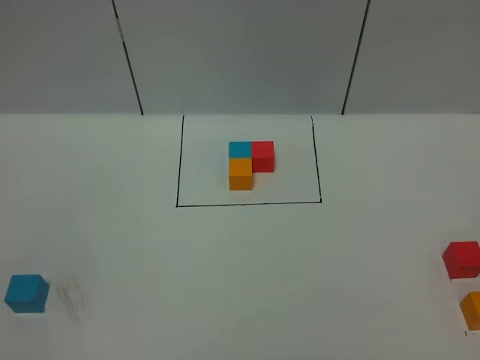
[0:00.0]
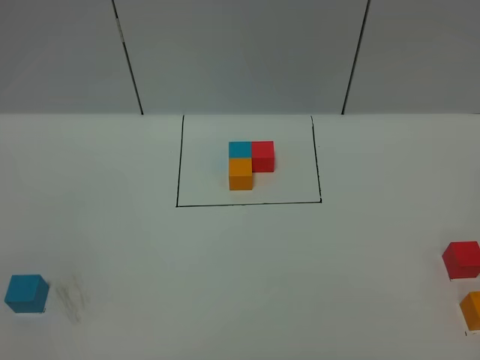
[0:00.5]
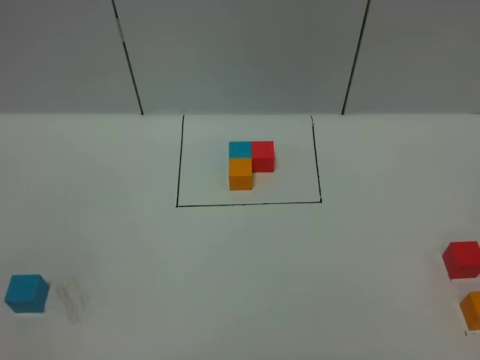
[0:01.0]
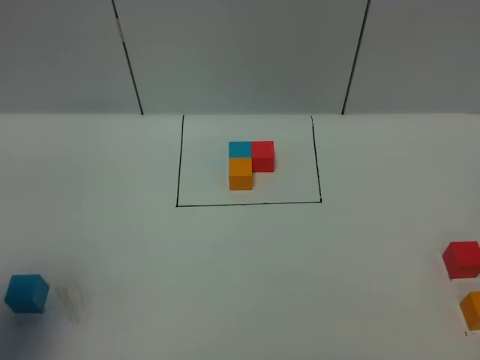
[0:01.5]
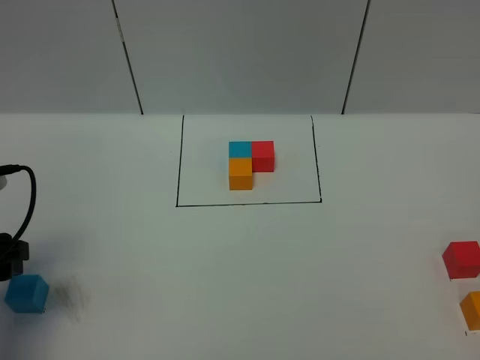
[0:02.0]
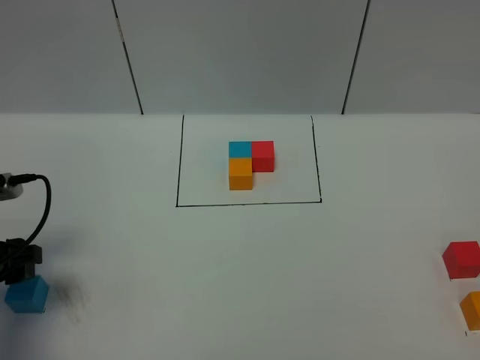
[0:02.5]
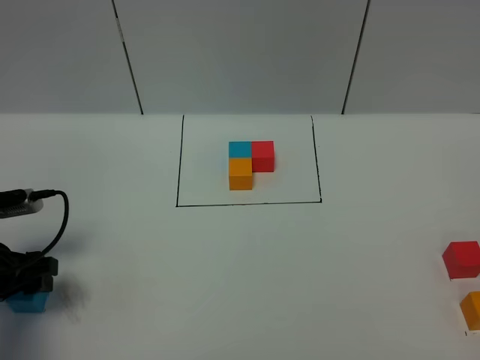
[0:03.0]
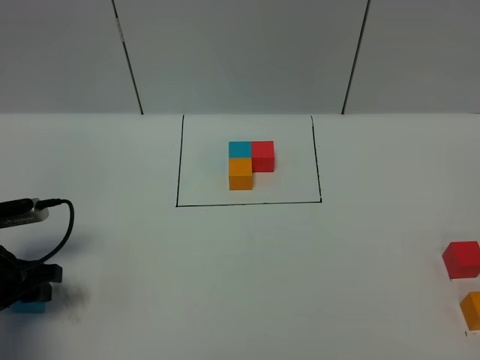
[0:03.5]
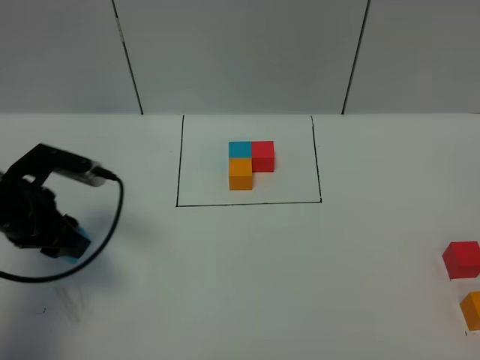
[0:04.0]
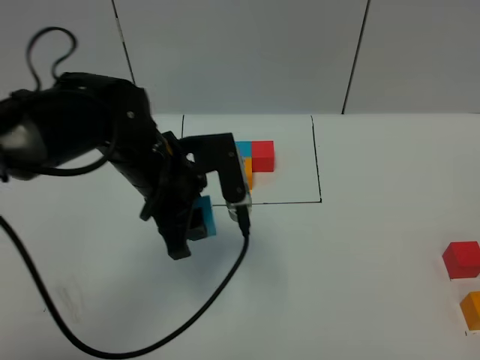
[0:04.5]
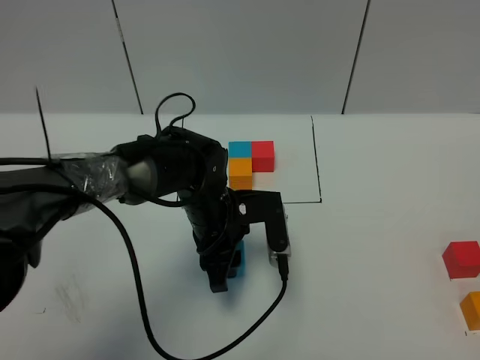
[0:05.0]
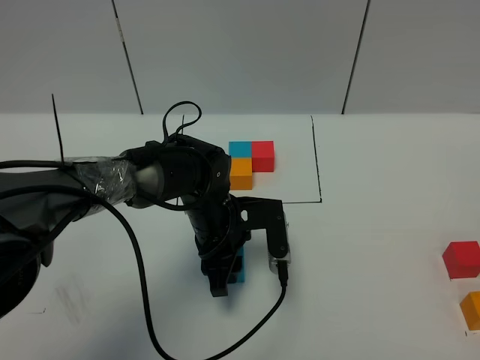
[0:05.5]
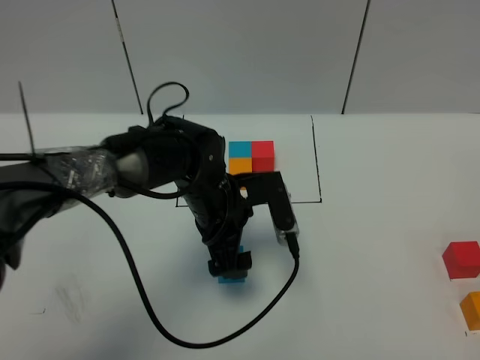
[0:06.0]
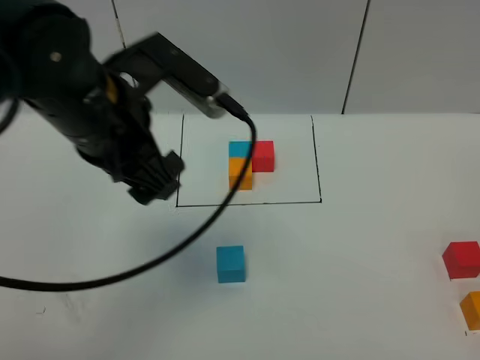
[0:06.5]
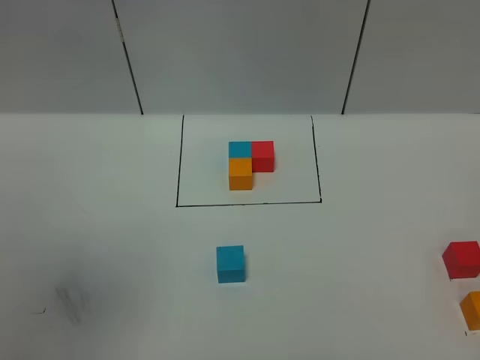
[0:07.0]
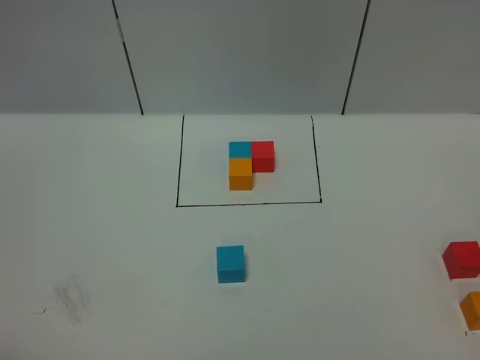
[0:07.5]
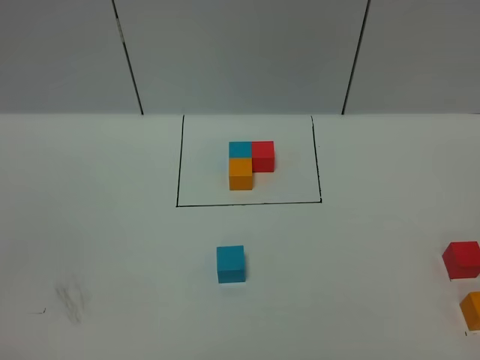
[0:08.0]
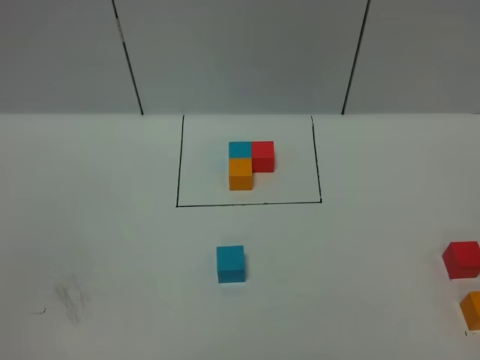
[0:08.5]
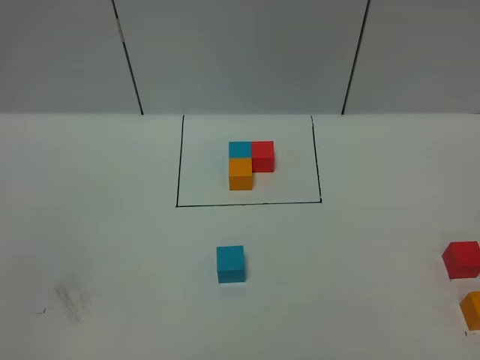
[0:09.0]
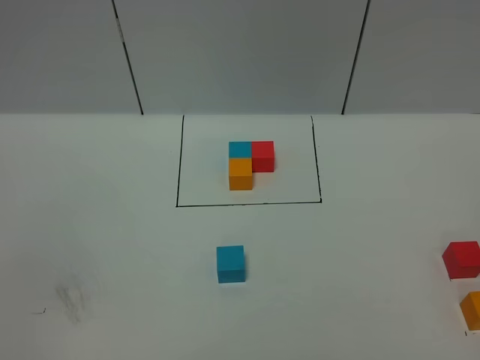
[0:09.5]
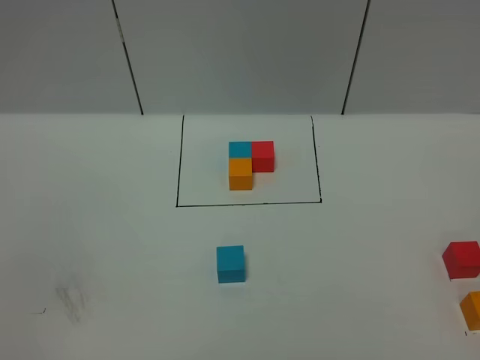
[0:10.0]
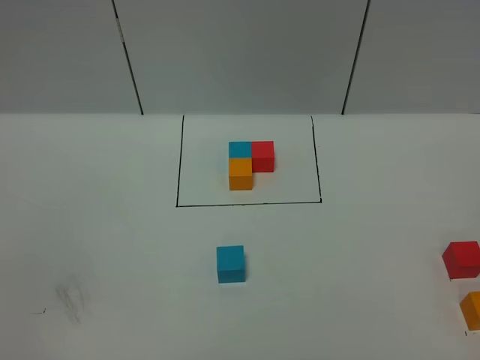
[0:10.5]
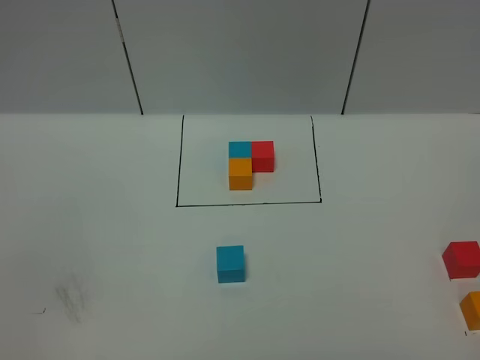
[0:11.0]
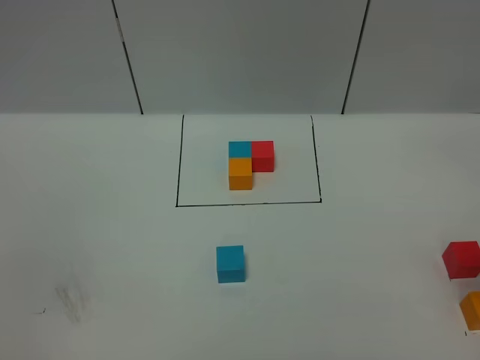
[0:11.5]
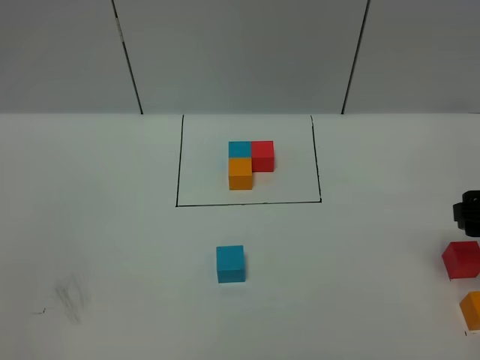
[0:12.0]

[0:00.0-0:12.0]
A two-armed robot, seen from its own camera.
Task of the whole recording: According to the building block template in front, assemble the scattered blocks together.
Step, 0:02.0 to 0:06.0: Put the blue cube in the center of the table.
0:00.0 to 0:02.0: The left gripper travels forward by approximately 25 cm.
0:02.0 to 0:04.0: The left gripper goes approximately 10 cm forward and to the right, and closes its fingers.
0:04.0 to 0:06.0: The left gripper is displaced to the right by approximately 25 cm, and opens up.
0:06.0 to 0:08.0: The left gripper shifts some 50 cm backward, to the left and upward, and closes.
0:10.0 to 0:12.0: The right gripper goes approximately 30 cm forward, and opens up.

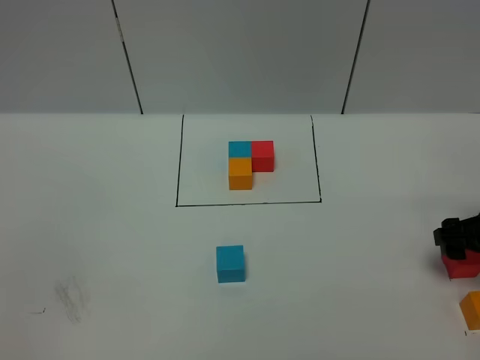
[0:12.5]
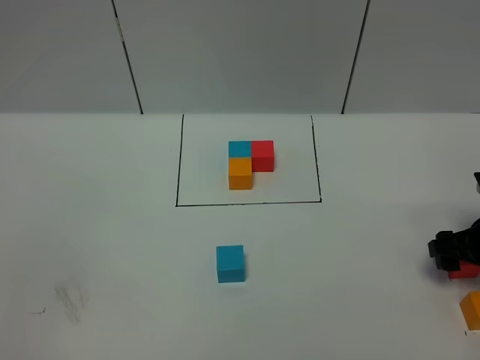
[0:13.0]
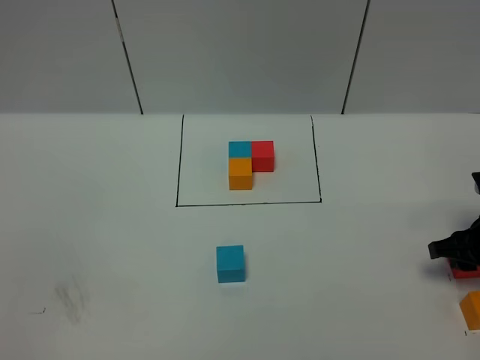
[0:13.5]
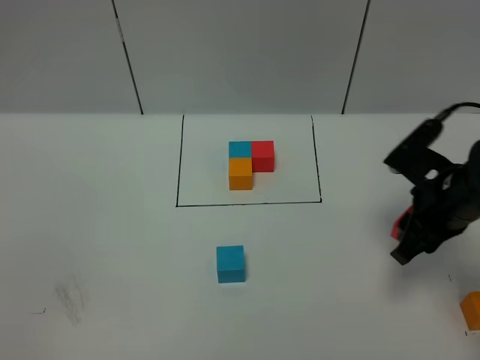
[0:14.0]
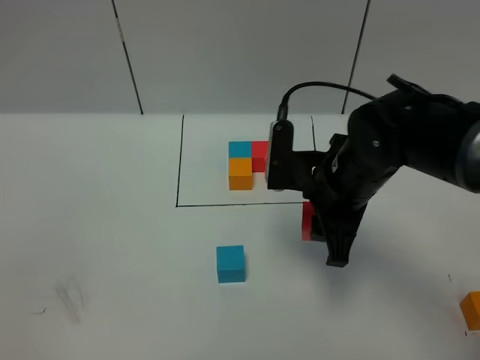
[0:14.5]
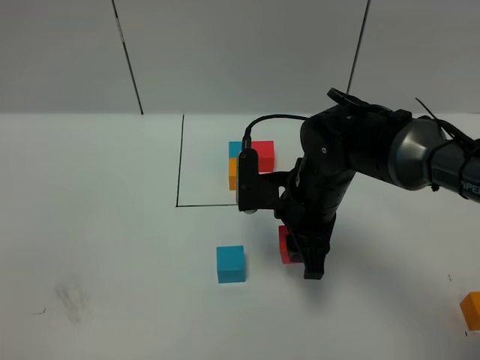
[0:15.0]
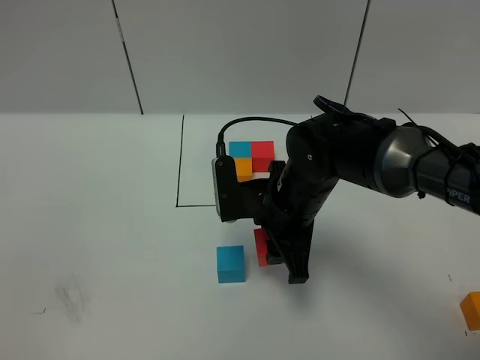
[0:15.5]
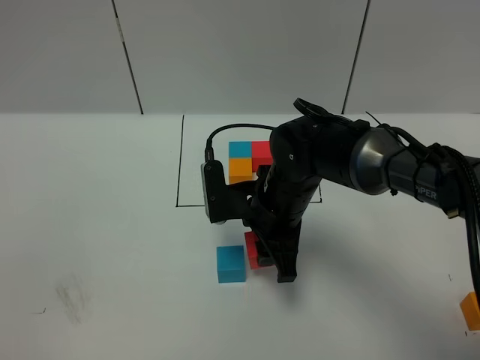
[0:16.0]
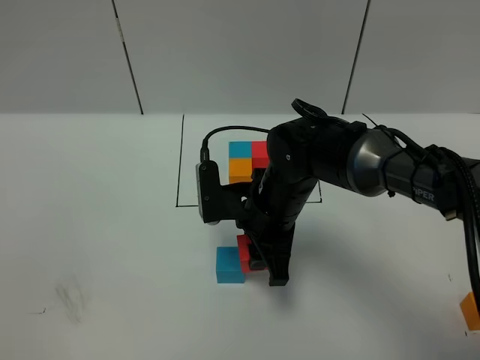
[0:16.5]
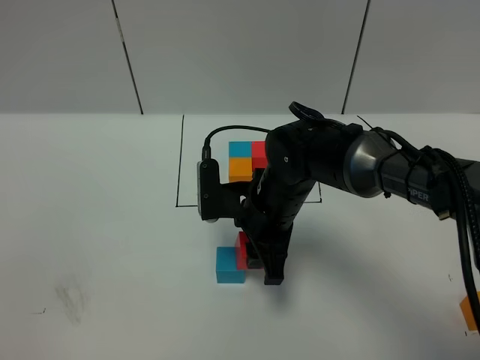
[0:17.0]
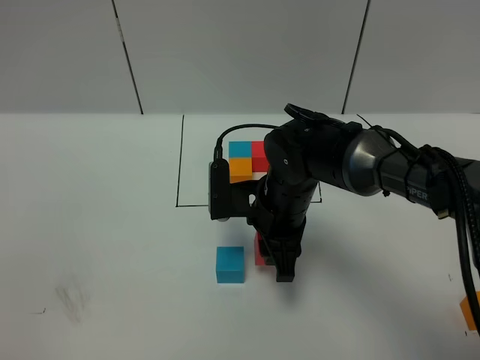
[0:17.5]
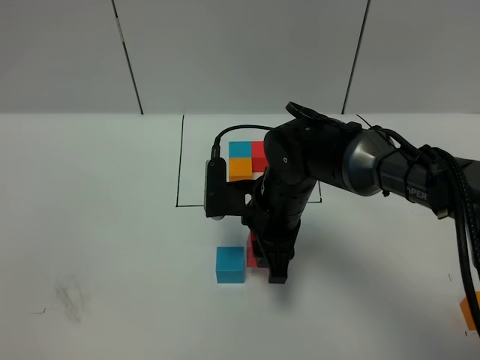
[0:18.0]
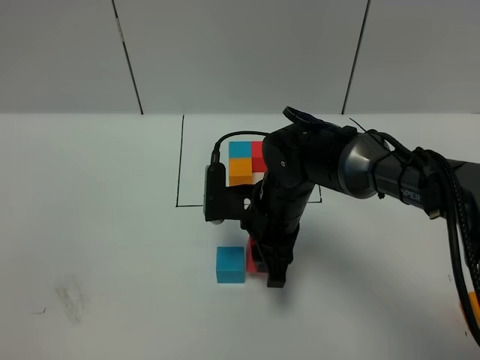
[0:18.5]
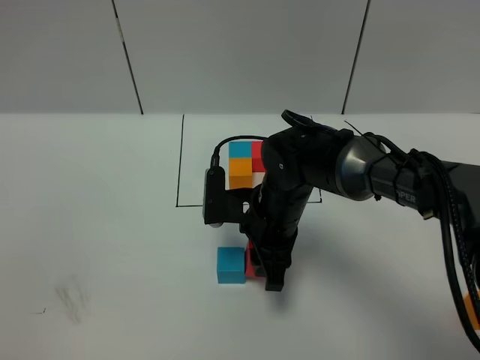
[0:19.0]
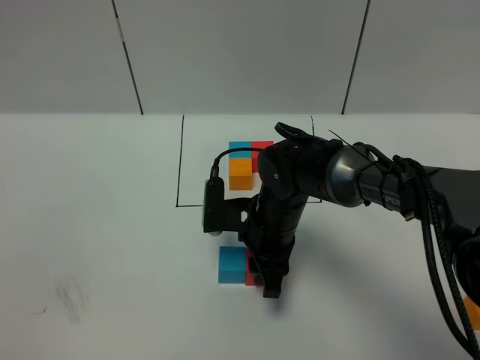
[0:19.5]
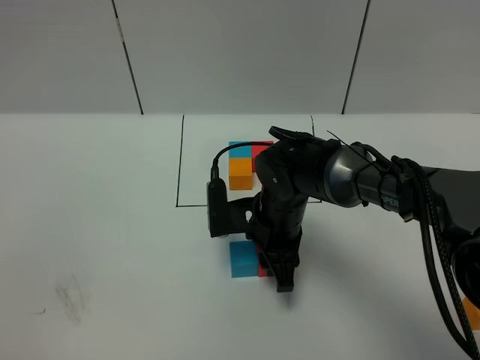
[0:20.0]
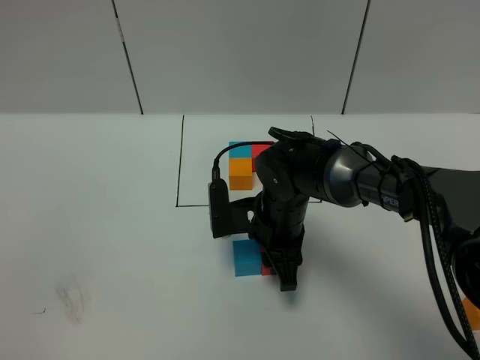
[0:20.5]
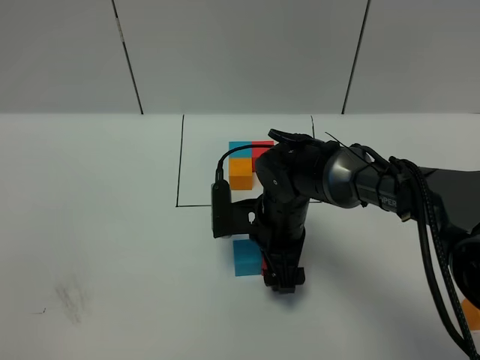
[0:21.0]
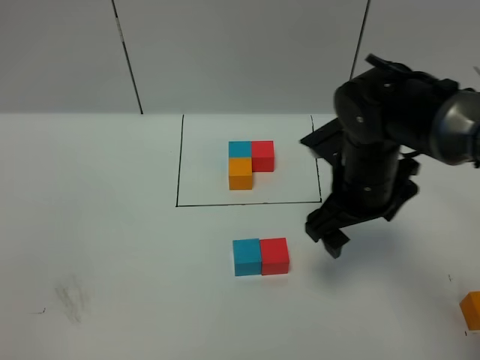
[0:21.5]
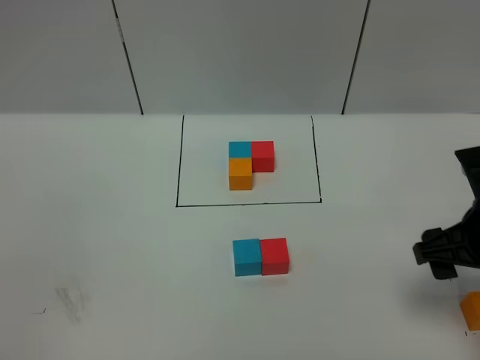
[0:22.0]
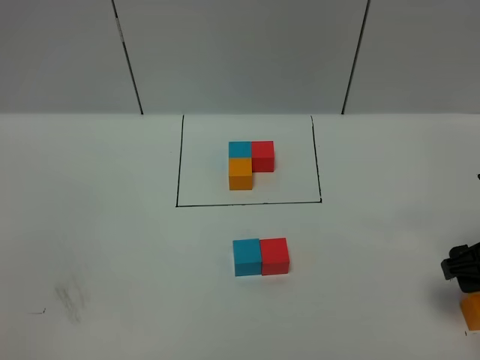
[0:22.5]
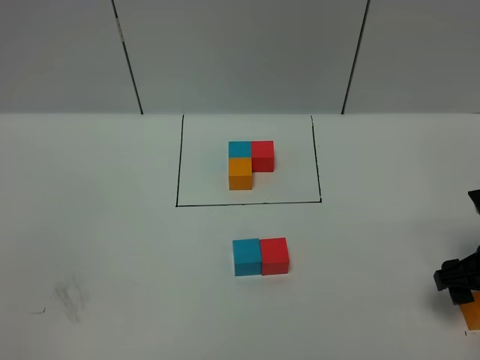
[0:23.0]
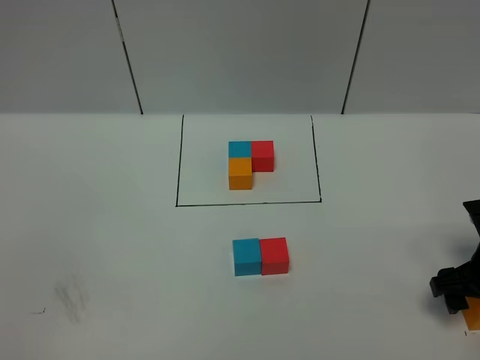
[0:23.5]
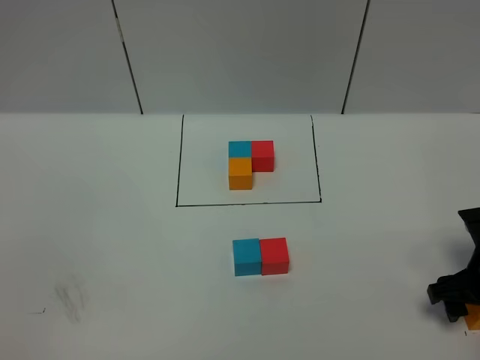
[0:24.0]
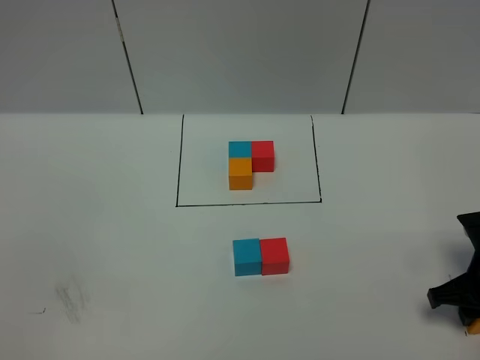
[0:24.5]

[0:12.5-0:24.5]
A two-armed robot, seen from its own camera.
Task of the whole recording: According to the building block template in front, assemble the scattered blocks together.
Step, 0:12.5 to 0:21.0: Put the red cube on the right of the blue cube.
0:12.5 to 0:14.5: The right gripper travels to the left by some 20 cm, and closes.
0:14.5 to 0:16.5: The right gripper is displaced to the left by roughly 5 cm.
0:16.5 to 0:20.5: The grippers stay close to where they were, moving slightly.
0:20.5 to 0:22.5: The right gripper travels to the right by about 25 cm, and opens.
0:22.5 to 0:24.5: The right gripper moves downward, approximately 5 cm, and closes.

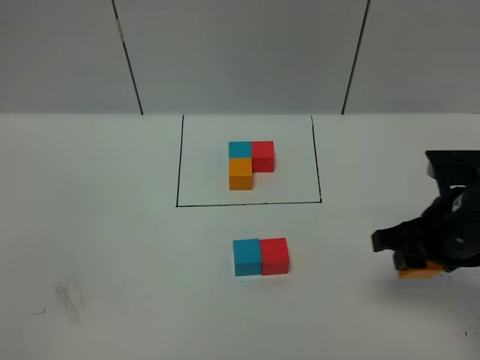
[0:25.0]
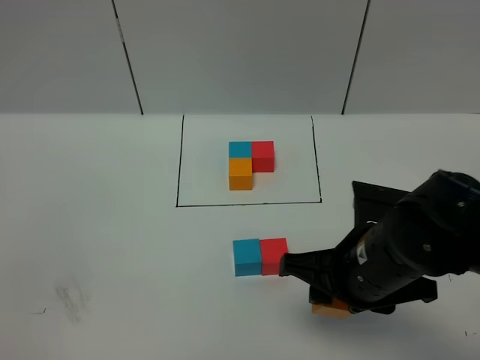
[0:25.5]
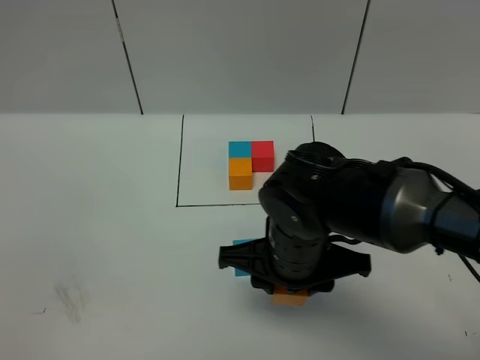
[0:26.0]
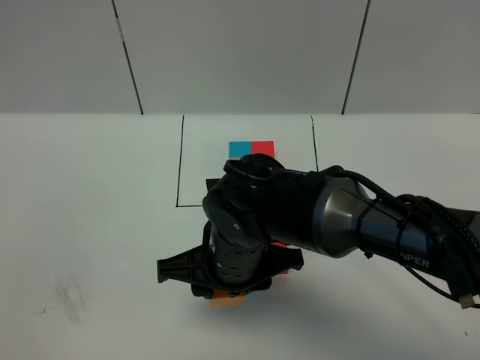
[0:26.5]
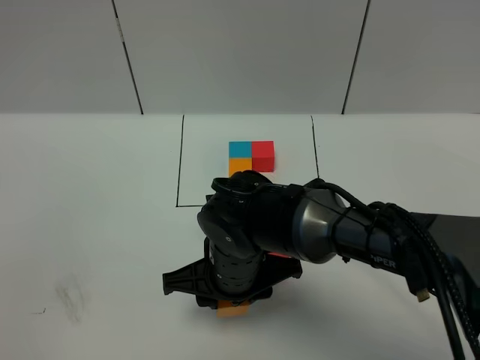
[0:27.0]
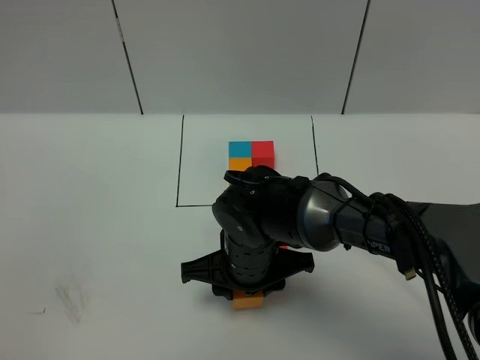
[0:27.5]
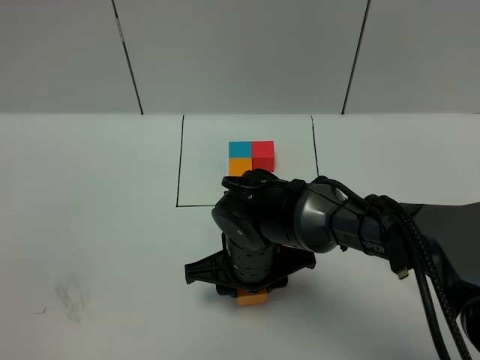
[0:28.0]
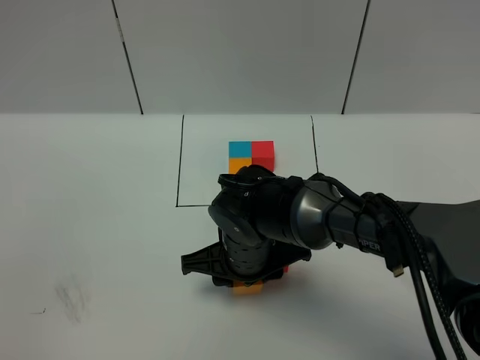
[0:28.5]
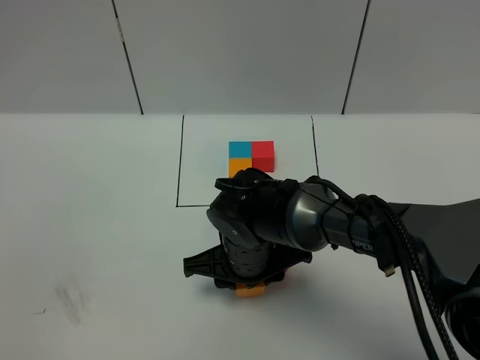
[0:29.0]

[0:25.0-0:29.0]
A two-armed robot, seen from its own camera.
Task of the whole recording: According to the building block template in front, assemble the scattered blocks together.
0:25.0 to 0:27.0: The right gripper shifts roughly 25 cm to the left.
0:27.0 to 0:29.0: The grippers move only a little.
